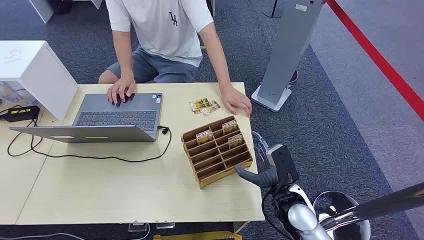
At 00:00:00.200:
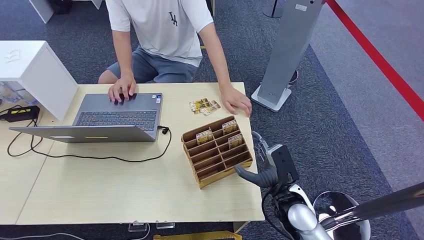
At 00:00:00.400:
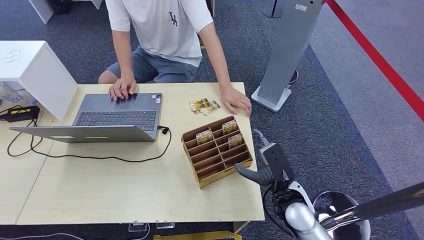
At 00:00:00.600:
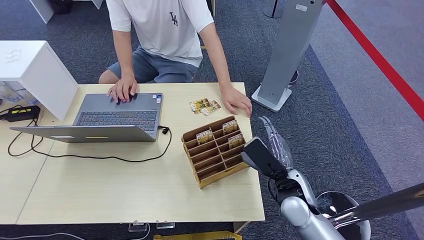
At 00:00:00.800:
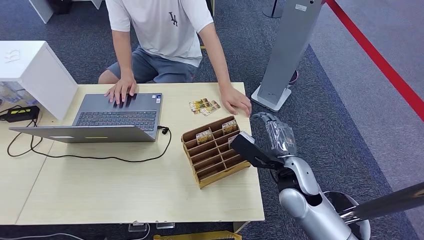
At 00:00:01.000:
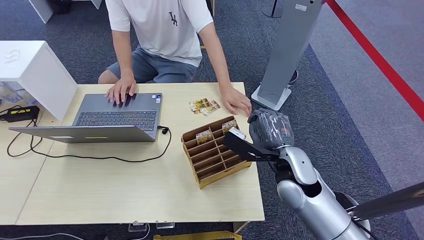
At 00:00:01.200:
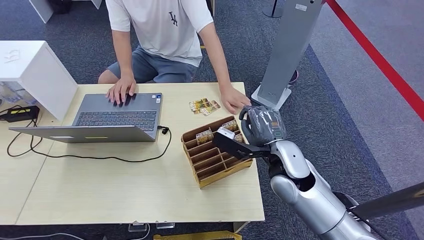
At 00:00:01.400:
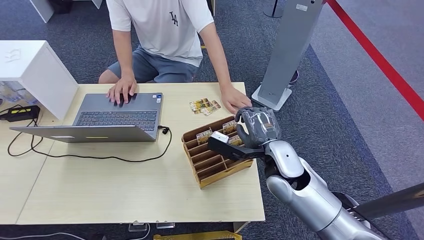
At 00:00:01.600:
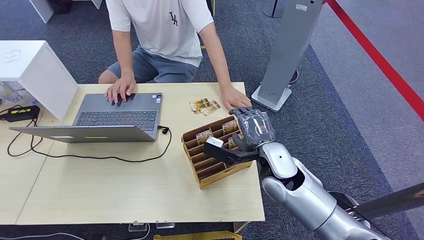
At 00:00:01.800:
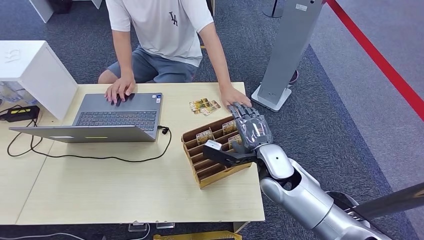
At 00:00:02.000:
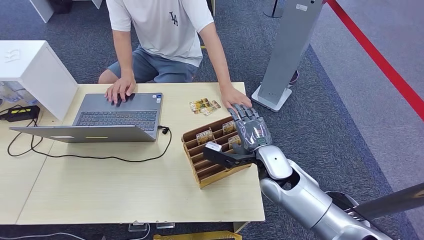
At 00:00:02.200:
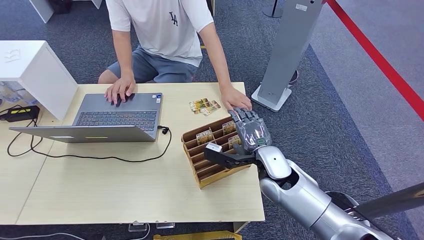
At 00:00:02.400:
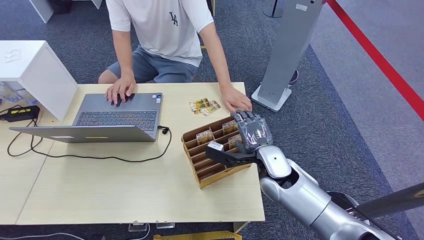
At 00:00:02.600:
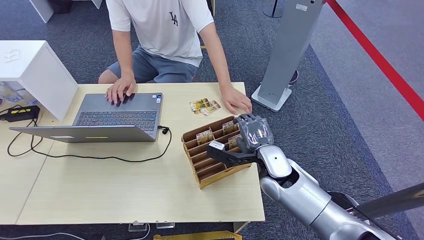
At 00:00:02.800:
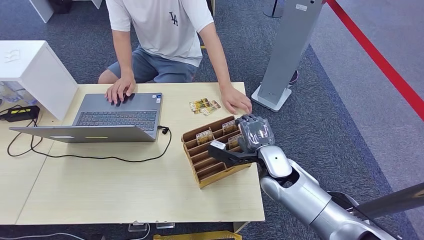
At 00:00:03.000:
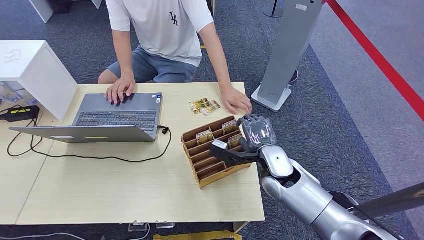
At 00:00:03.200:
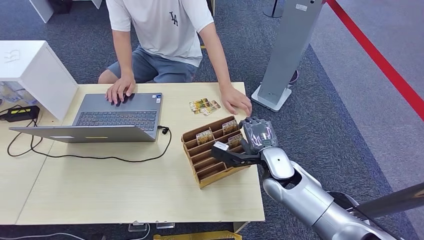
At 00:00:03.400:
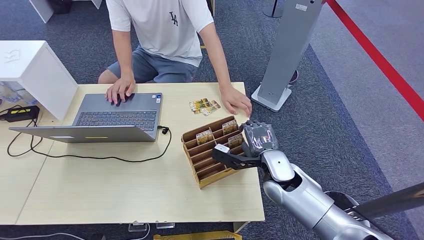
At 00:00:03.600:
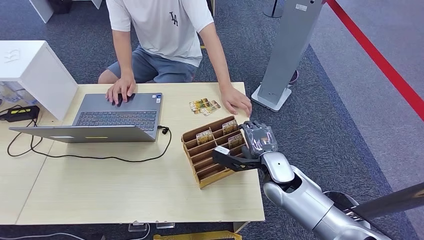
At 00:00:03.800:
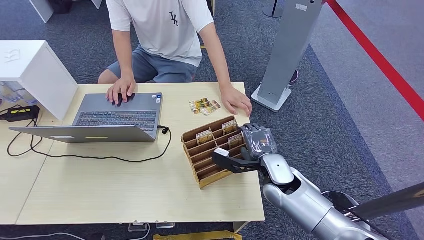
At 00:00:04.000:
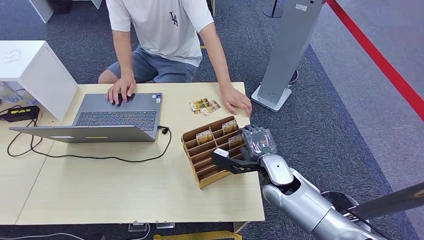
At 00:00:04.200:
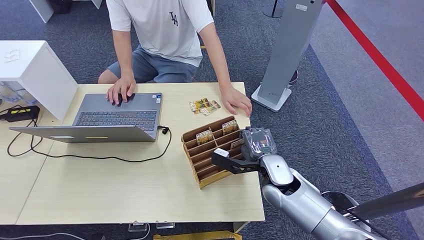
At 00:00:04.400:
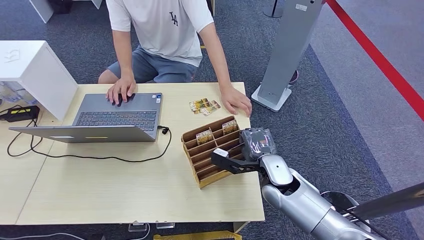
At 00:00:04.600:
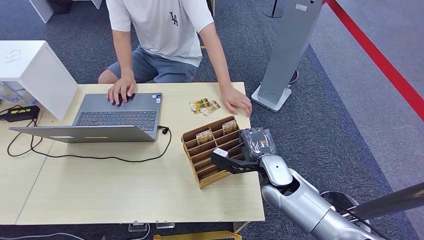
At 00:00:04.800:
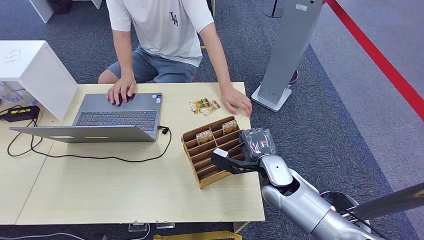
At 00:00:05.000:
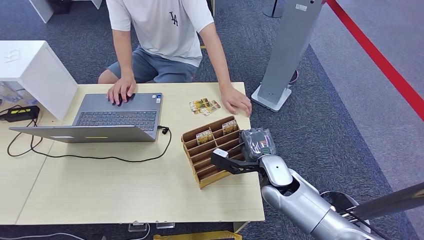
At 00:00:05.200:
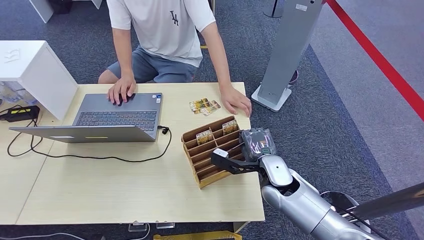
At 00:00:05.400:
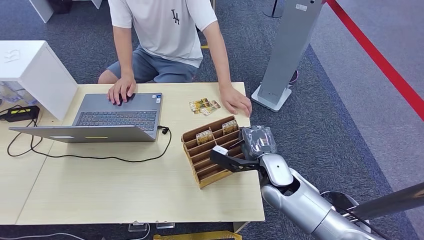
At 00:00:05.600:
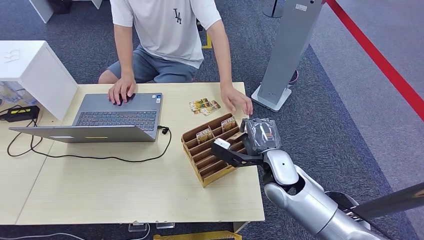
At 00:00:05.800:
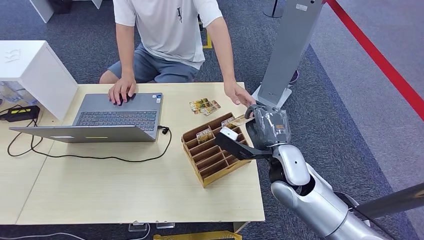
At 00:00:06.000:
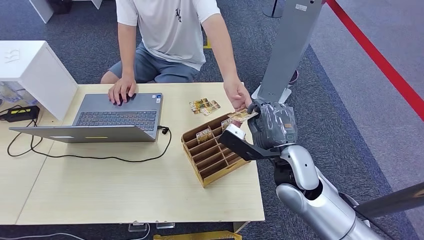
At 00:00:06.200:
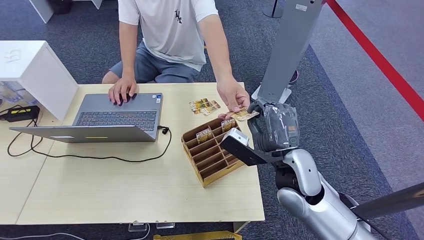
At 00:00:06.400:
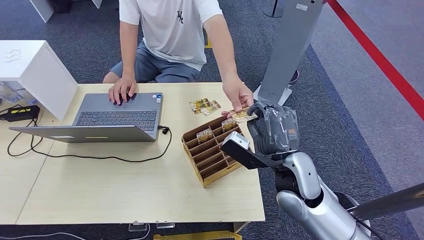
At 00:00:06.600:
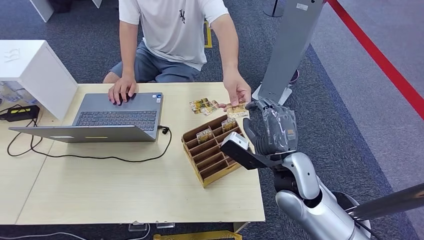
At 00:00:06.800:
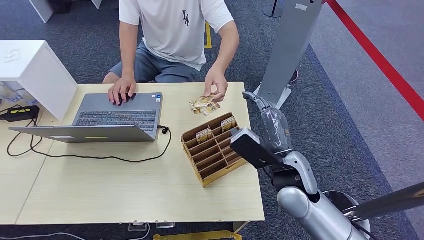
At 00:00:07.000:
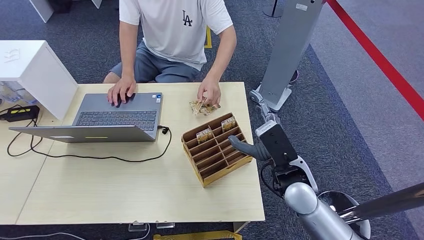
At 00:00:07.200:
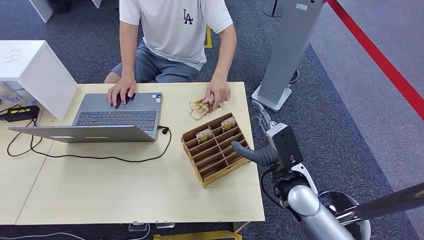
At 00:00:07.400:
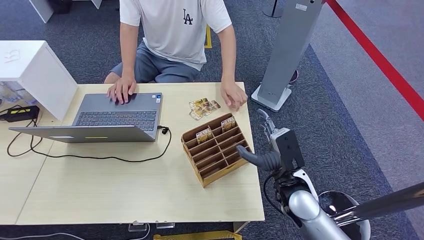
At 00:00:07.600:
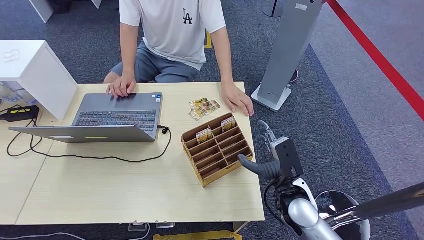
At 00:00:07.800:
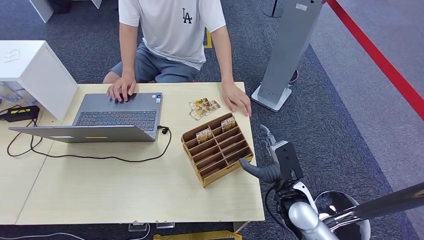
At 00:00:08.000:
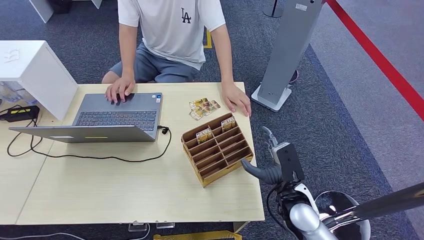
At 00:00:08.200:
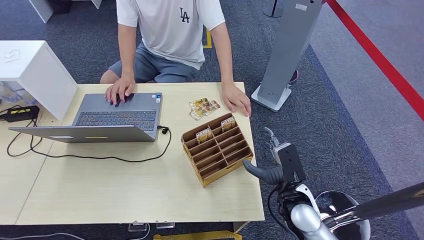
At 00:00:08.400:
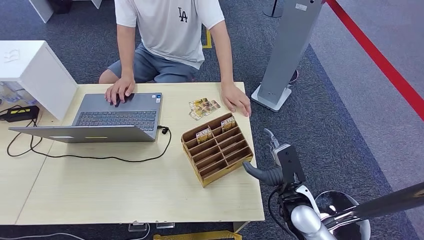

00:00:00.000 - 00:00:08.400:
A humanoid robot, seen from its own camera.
Step, 00:00:00.000 - 00:00:05.600: Pick up the room card from the card holder.
Step, 00:00:05.800 - 00:00:08.400: Hand the room card to the target.
00:00:01.400 - 00:00:02.800: The right hand shifts by some 5 cm.
00:00:02.800 - 00:00:05.600: The hands move only a little.
00:00:05.600 - 00:00:07.000: The right hand moves approximately 5 cm.
00:00:07.000 - 00:00:08.400: The right hand goes some 10 cm downward.

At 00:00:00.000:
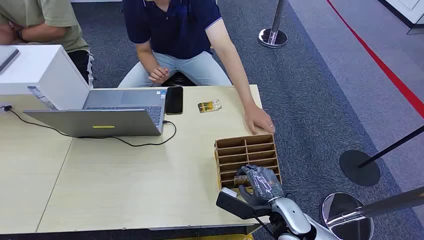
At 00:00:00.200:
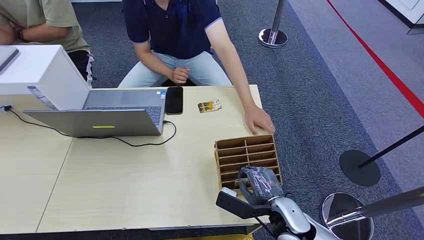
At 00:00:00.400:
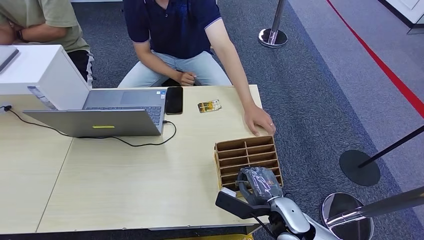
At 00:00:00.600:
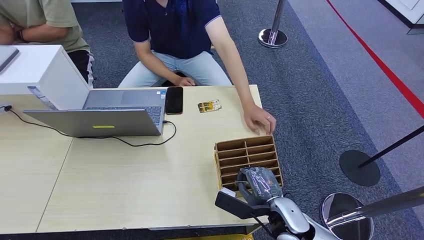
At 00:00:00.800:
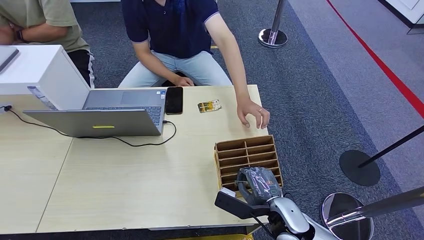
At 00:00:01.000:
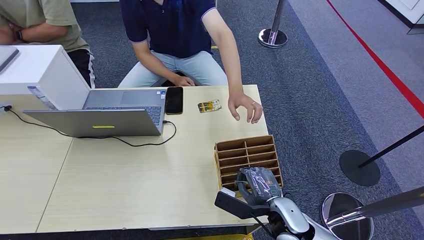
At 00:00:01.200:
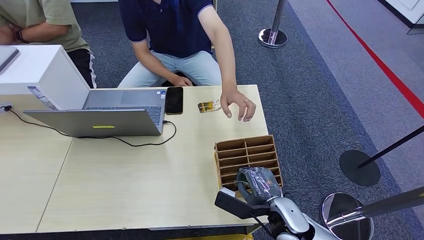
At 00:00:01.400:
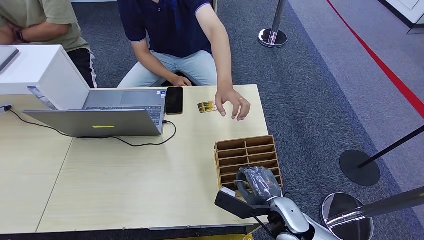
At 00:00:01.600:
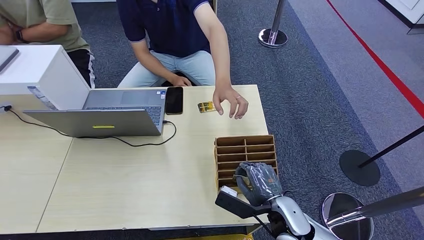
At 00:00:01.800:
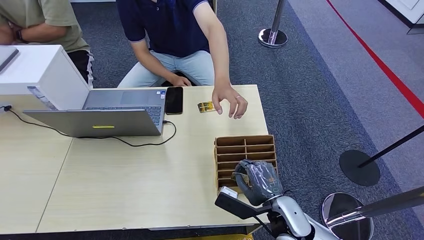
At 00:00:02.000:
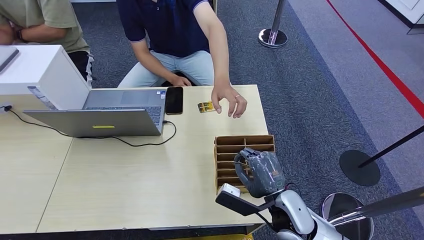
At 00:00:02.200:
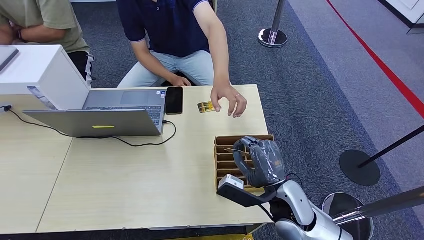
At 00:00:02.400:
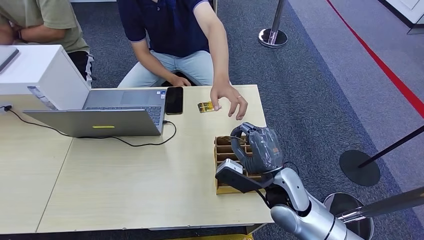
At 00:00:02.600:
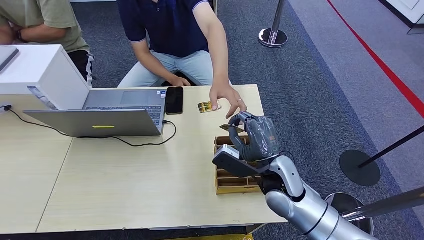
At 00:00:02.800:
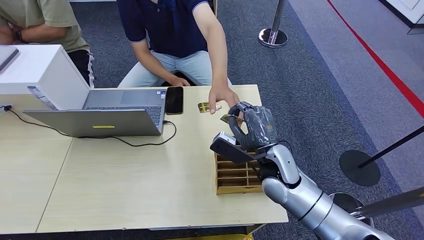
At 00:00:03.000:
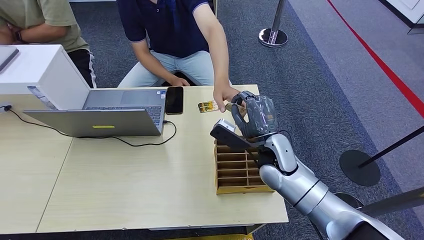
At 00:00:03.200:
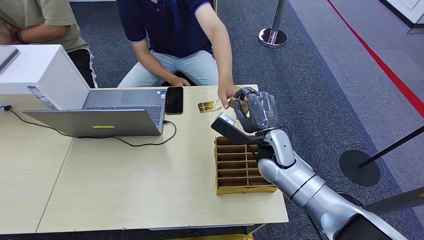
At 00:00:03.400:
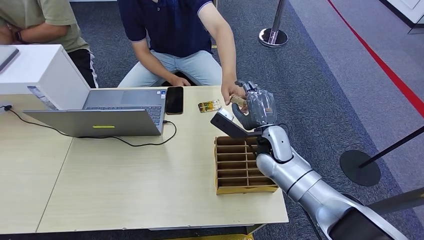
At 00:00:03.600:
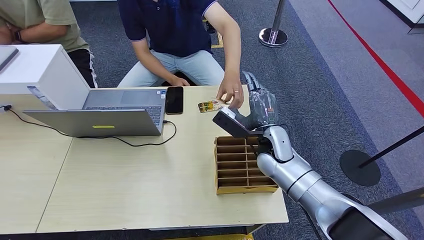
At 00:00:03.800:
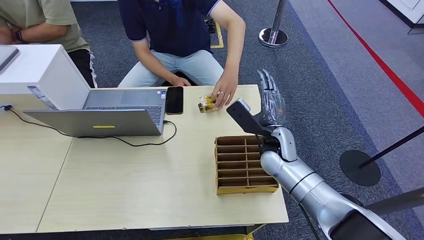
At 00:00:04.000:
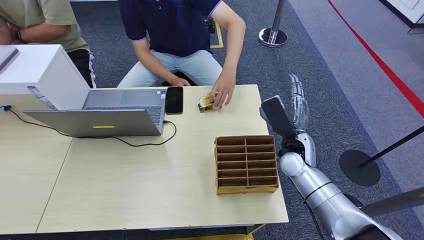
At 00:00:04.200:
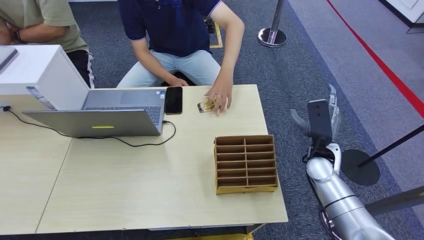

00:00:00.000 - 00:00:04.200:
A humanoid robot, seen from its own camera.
Step, 00:00:00.000 - 00:00:02.600: Pick up the room card from the card holder.
Step, 00:00:02.800 - 00:00:04.200: Hand the room card to the target.
00:00:01.400 - 00:00:02.800: The right hand shifts about 15 cm forward and upward.
00:00:02.800 - 00:00:04.200: The right hand is displaced to the right by roughly 15 cm.

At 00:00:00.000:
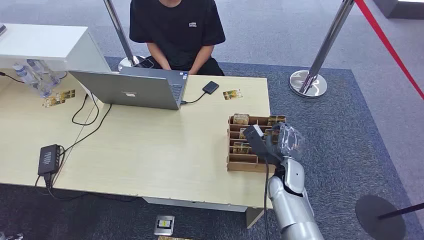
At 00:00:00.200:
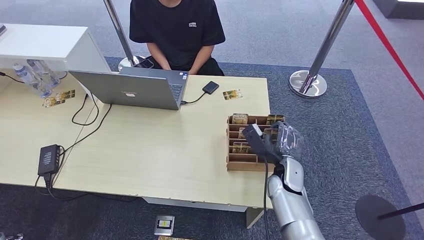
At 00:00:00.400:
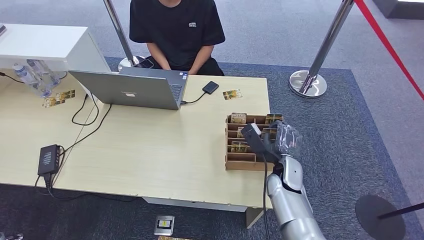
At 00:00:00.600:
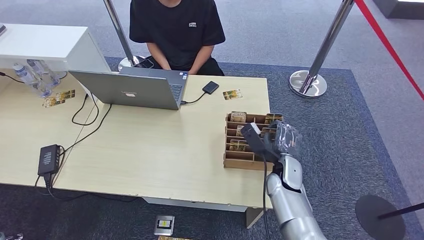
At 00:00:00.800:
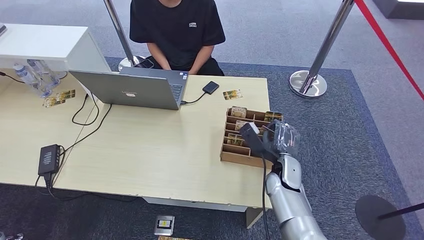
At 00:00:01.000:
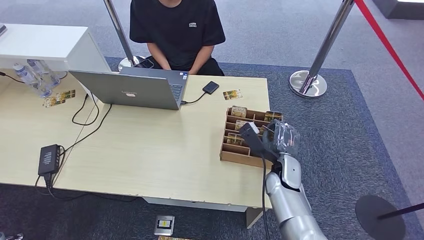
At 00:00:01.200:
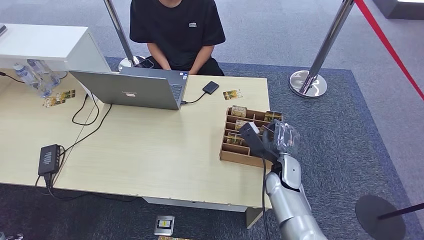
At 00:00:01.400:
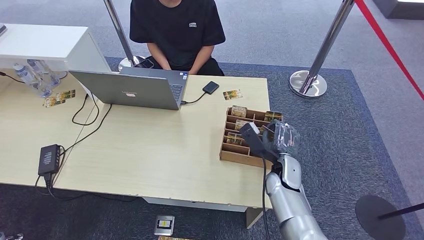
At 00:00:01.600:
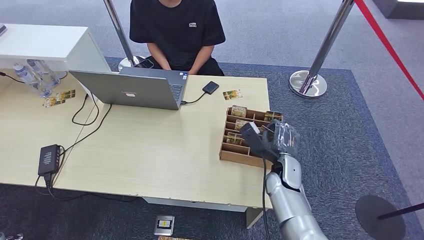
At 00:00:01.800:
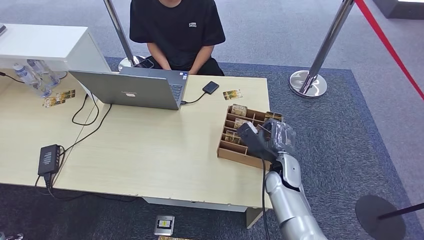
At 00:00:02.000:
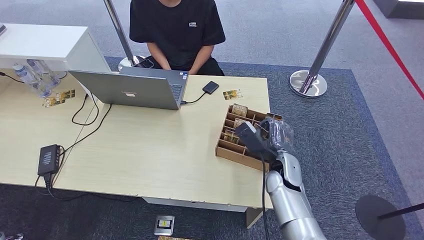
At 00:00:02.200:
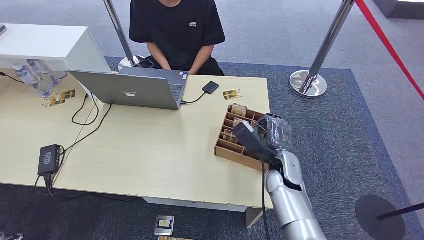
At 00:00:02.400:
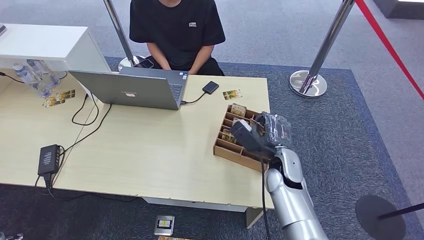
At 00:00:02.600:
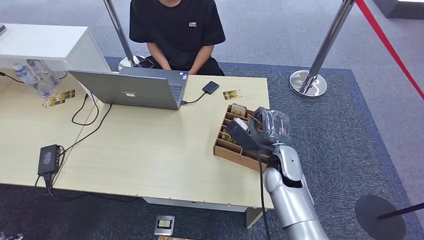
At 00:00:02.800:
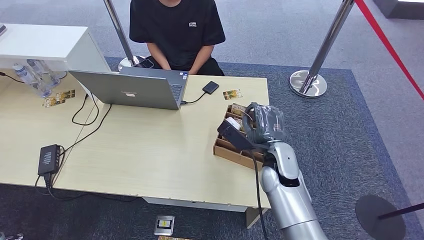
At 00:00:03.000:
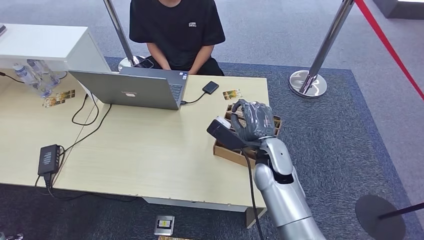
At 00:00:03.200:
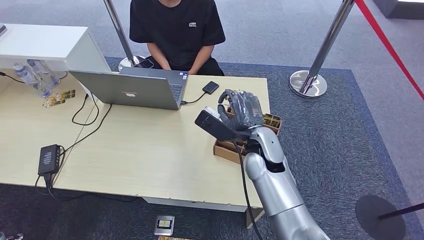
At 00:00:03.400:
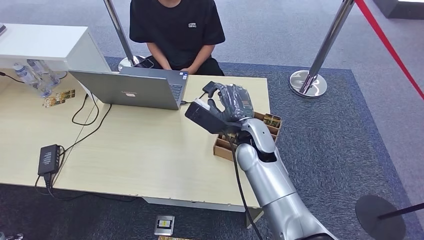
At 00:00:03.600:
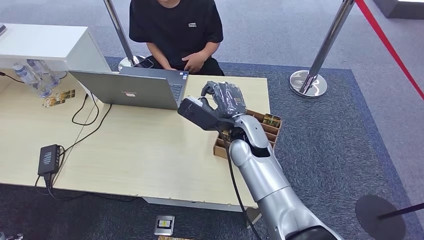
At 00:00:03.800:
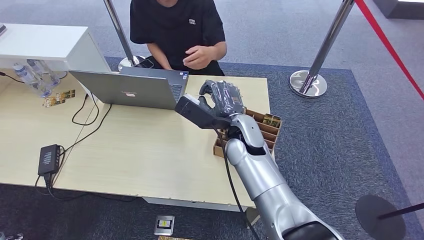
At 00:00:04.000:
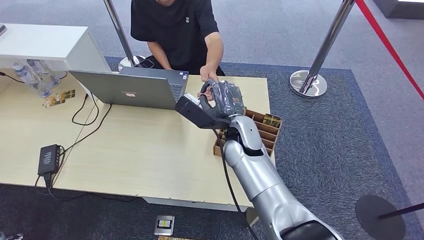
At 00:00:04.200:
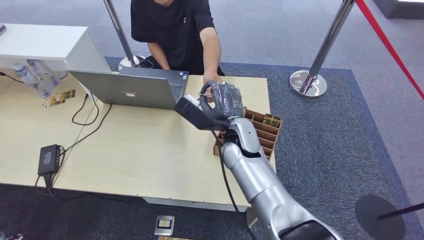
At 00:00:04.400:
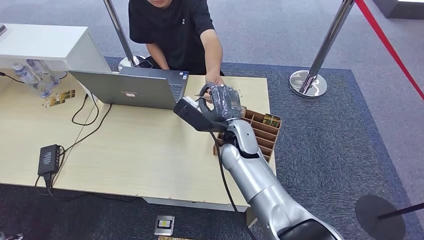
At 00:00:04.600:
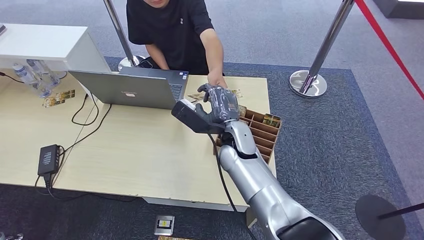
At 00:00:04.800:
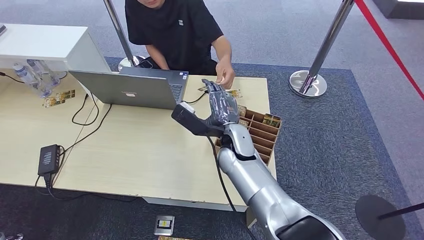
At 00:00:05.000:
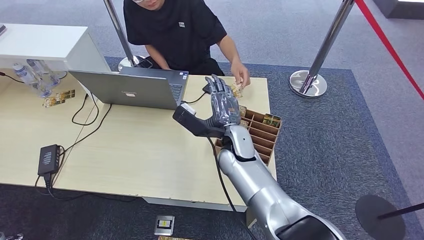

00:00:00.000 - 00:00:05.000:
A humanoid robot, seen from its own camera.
Step, 00:00:00.000 - 00:00:03.400: Pick up the room card from the card holder.
Step, 00:00:03.600 - 00:00:05.000: Hand the room card to the target.
00:00:01.600 - 00:00:03.400: The right hand shifts approximately 15 cm upward and to the left.
00:00:03.400 - 00:00:05.000: The hands make only small movements.
